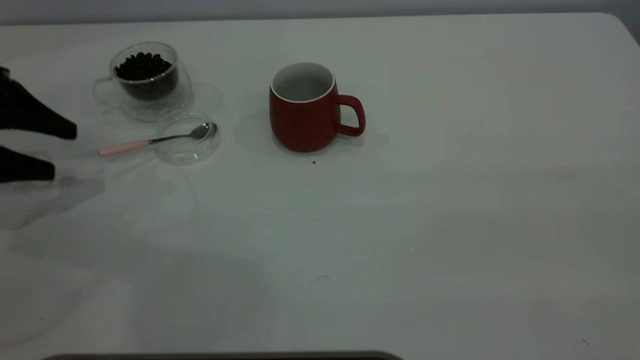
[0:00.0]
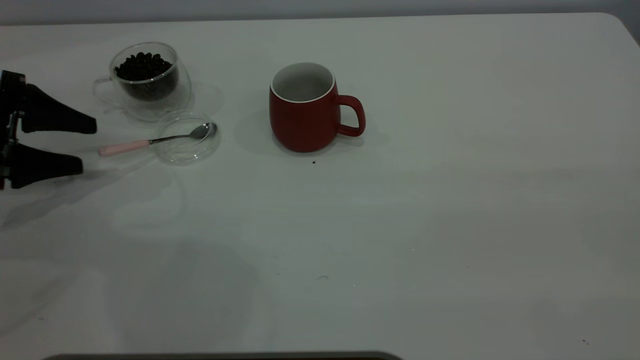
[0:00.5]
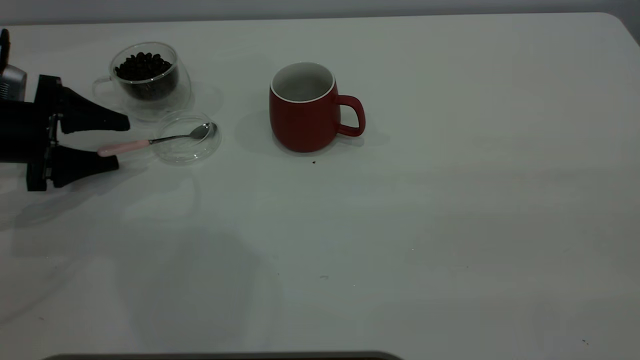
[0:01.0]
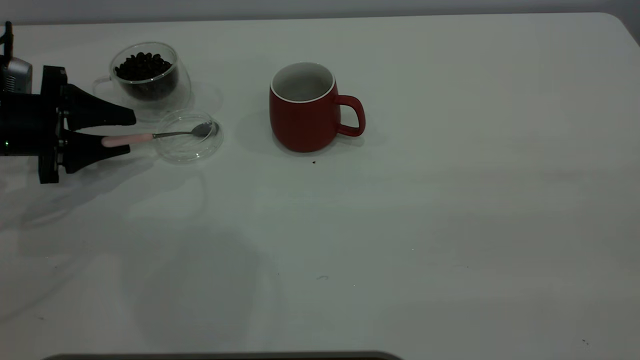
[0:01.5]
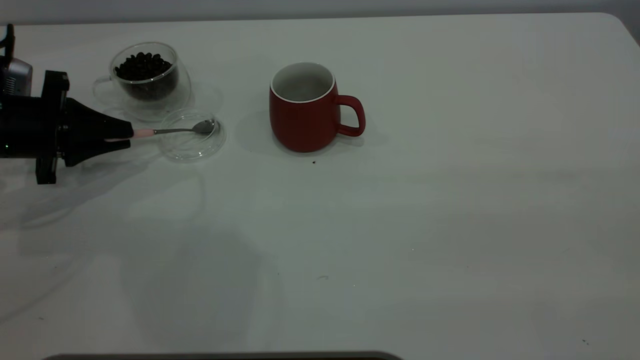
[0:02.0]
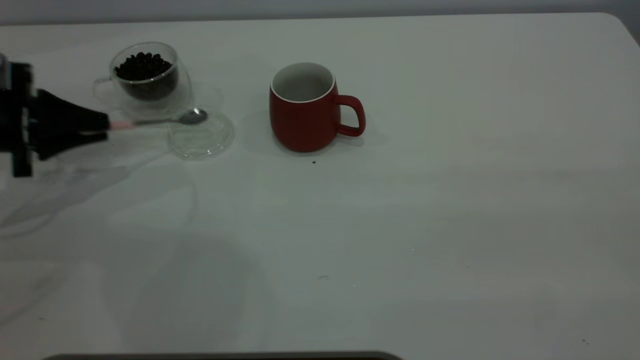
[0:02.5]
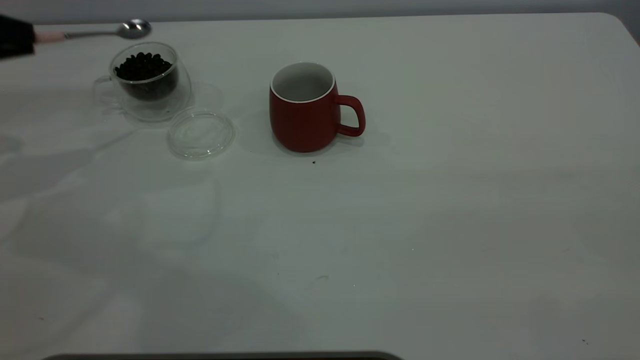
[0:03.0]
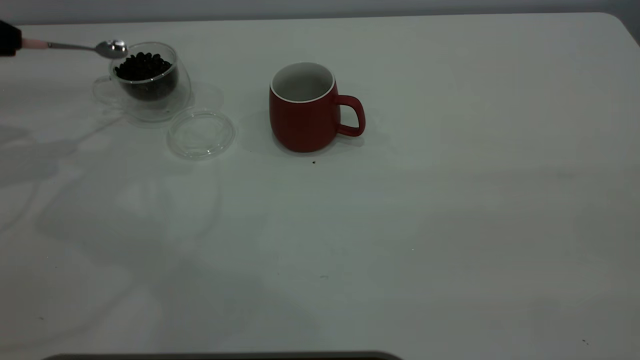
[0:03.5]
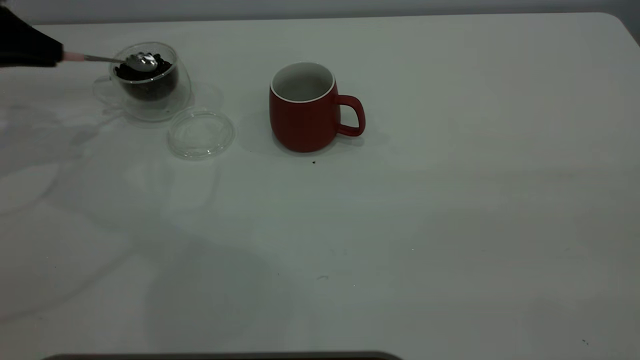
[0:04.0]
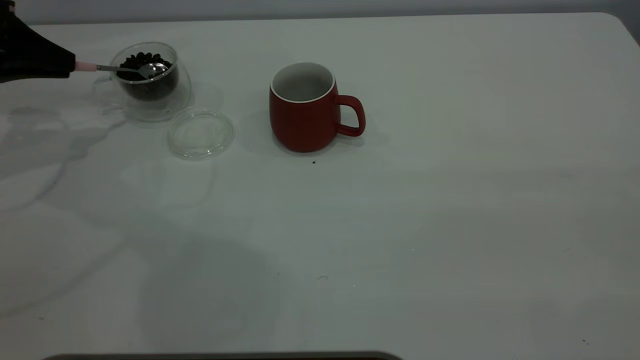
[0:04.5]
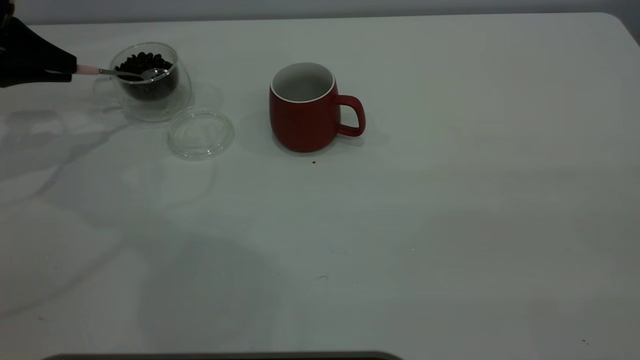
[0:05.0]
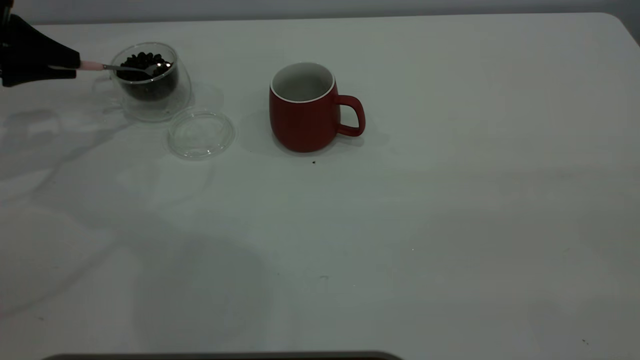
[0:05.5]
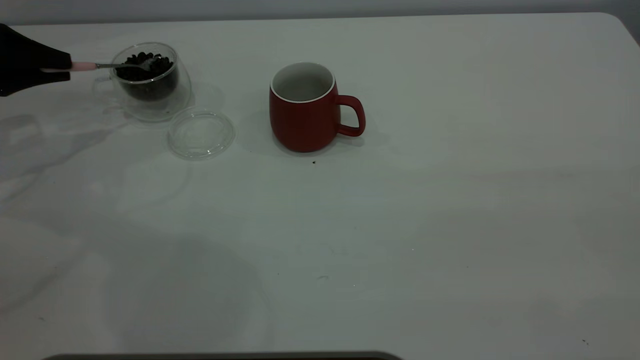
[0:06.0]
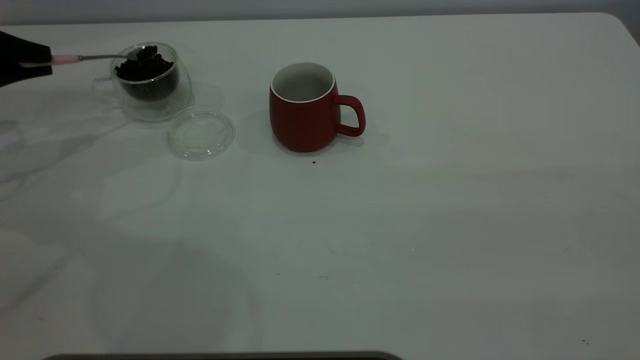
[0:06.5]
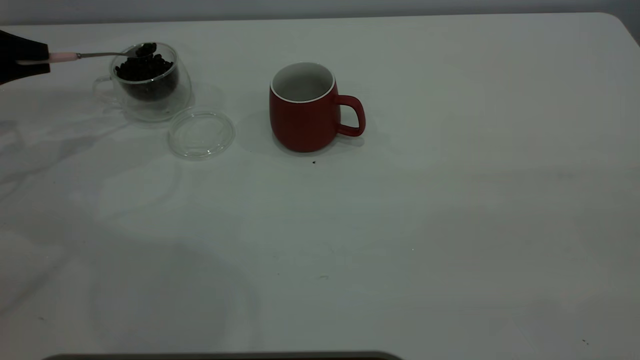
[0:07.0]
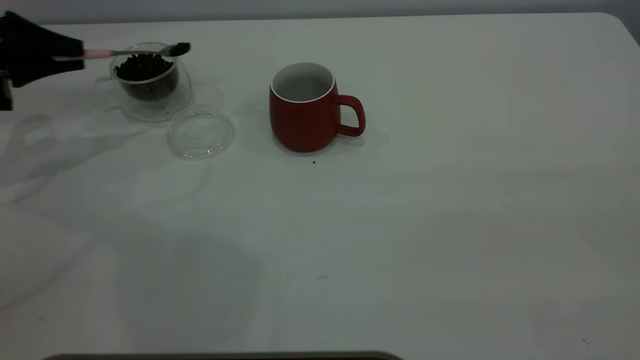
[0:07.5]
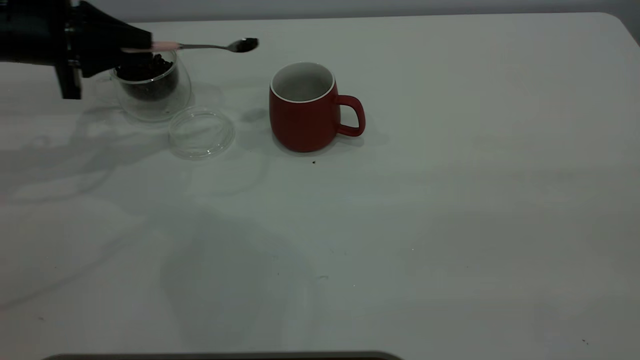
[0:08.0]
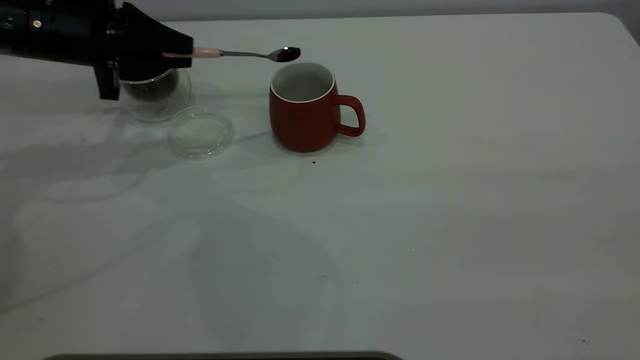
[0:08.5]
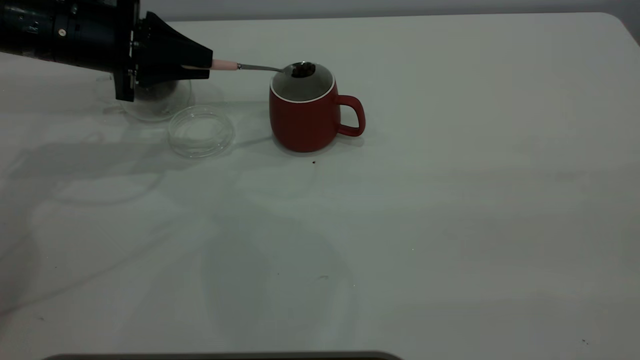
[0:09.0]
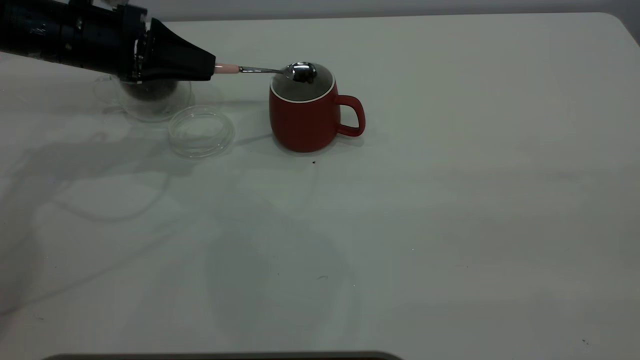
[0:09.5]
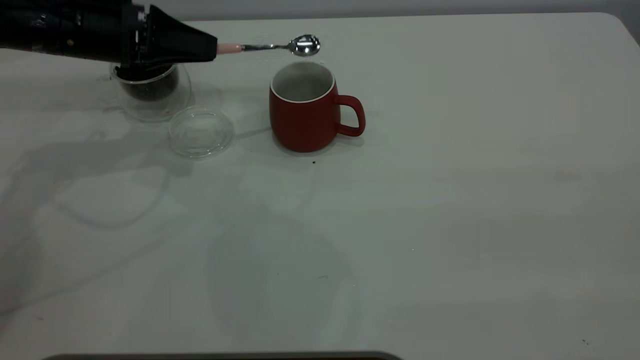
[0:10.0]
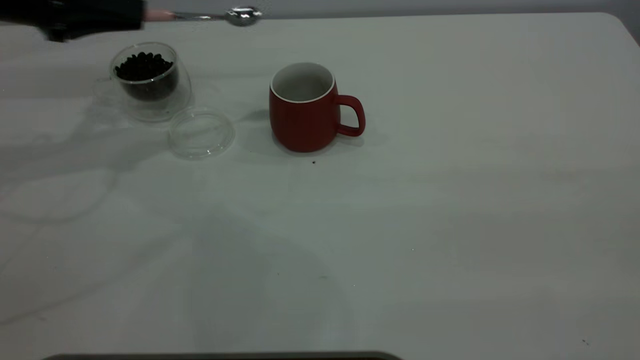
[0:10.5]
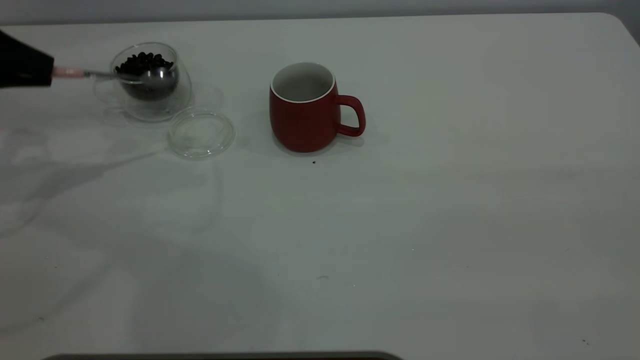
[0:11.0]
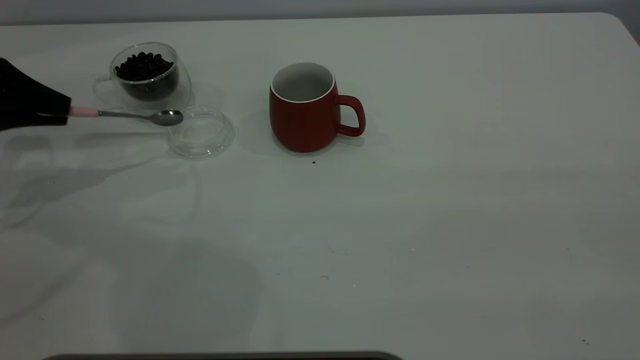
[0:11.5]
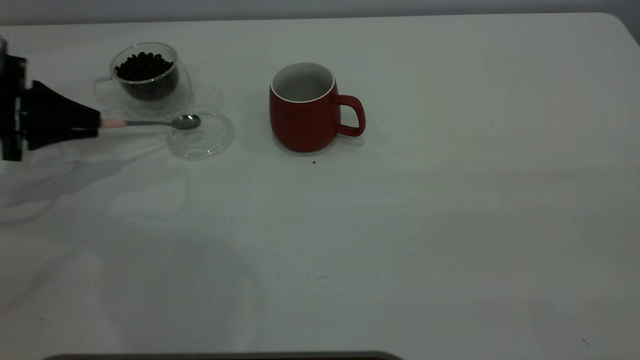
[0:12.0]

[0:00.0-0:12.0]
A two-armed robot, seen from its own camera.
Task of the whole recording: the right gripper place the red cup in the center of the table, the left gripper take the pink spoon from the cup lid and scoop out the coffee beans from the coffee cup and put them into the red cup, the left gripper put the spoon back into the cup lid.
Step, 0:00.0 to 0:02.5: Pick up the spoon.
Step, 0:03.0 to 0:10.0: Scoop a spoonful of beans into the cup.
0:00.0 to 0:02.0: The left gripper changes place by some 5 cm, and closes up.
0:02.0 to 0:04.0: The left gripper shifts about 15 cm upward, forward and to the left.
0:06.0 to 0:08.0: The left gripper shifts roughly 10 cm to the right.
0:08.0 to 0:10.0: The left gripper shifts roughly 5 cm to the right.
0:10.0 to 0:12.0: The left gripper goes about 15 cm to the left and downward.

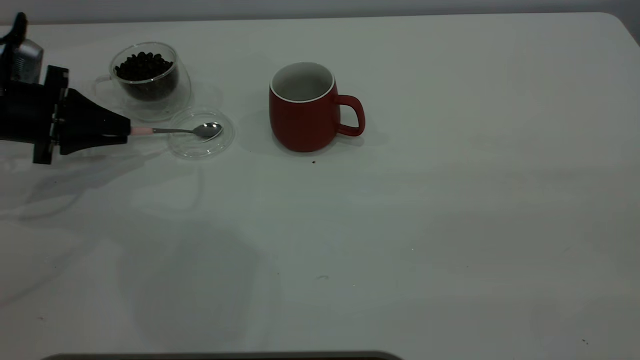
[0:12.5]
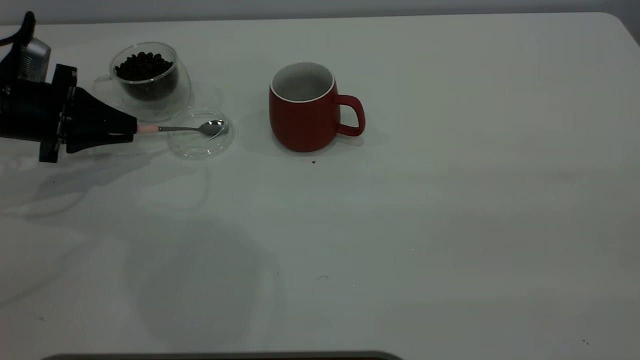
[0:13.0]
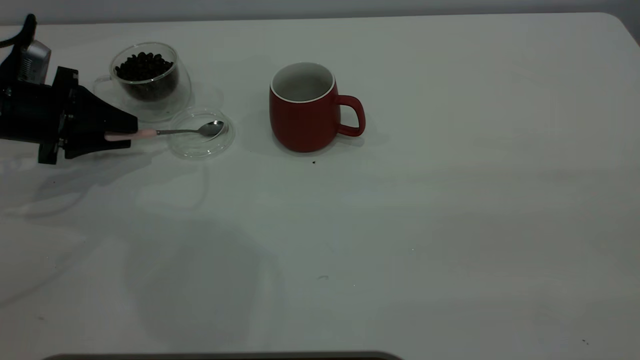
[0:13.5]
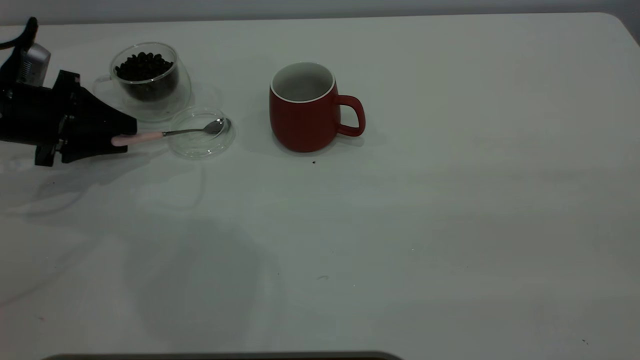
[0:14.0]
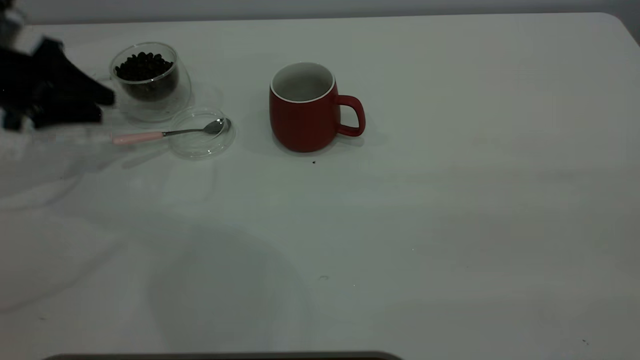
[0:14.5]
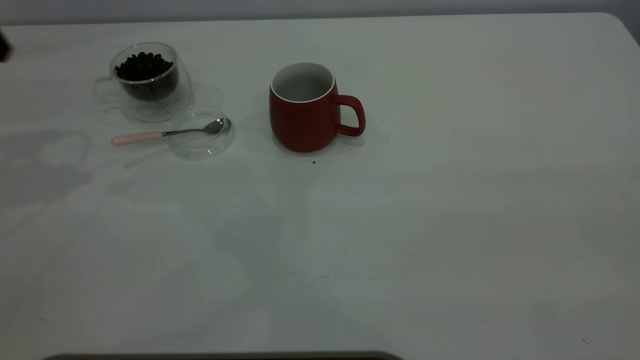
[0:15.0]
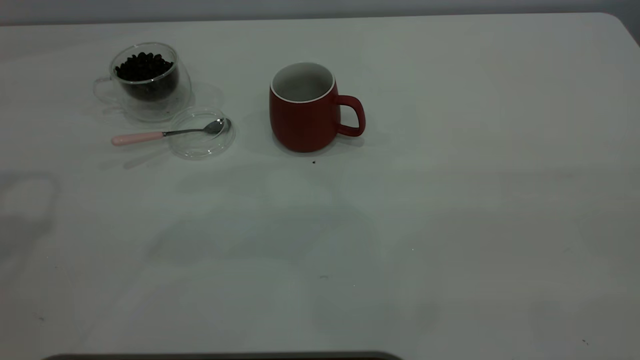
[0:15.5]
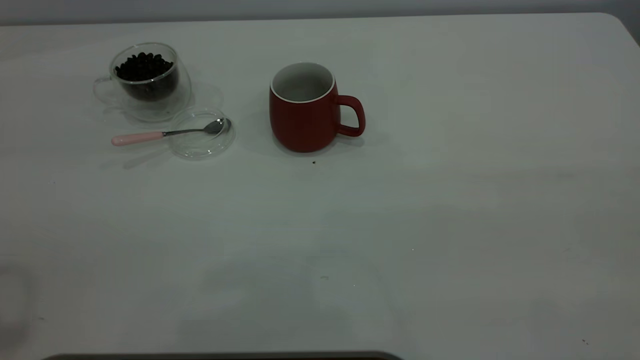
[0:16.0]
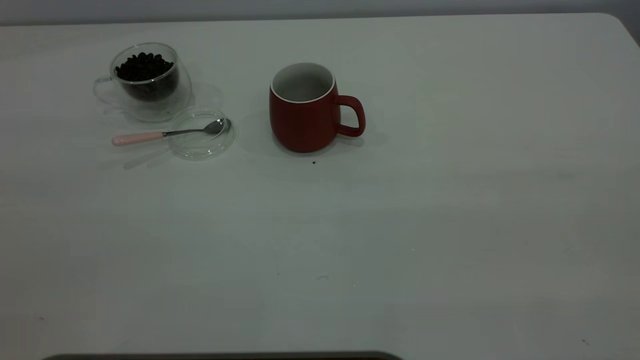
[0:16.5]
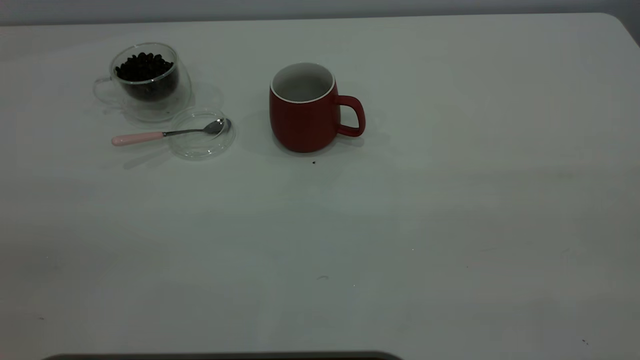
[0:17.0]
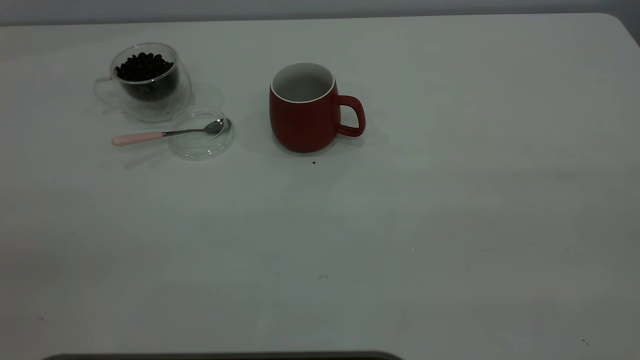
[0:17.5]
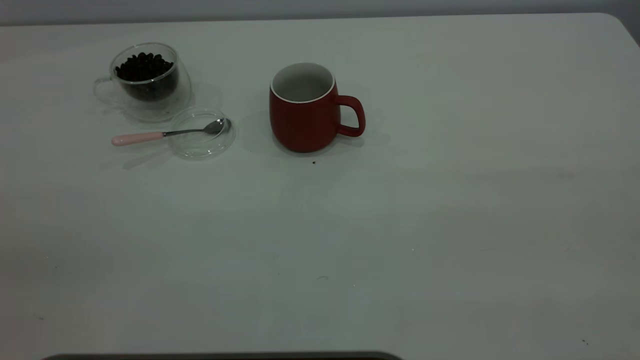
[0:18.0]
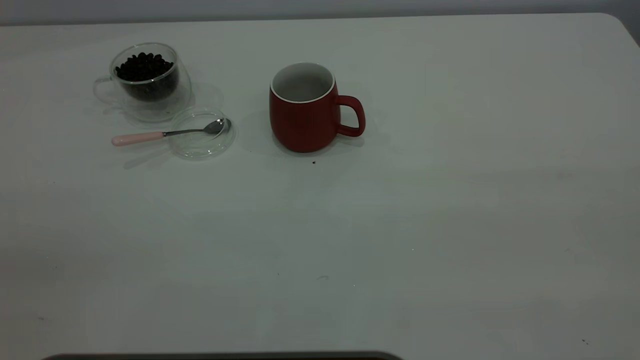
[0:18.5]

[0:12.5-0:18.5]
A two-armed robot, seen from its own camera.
Task of the whole recording: the right gripper place the red cup in the center of the table, the left gripper take the pink spoon from the cup lid and scoop out the coffee beans from the coffee cup and put them into the red cup, the left gripper put the spoon back into the cup lid.
Step, 0:12.5 to 0:14.5: Place the spoon back in its original place.
0:12.5 to 0:14.5: The left gripper moves upward, approximately 5 cm, and opens.
0:14.5 to 0:16.5: The left gripper is displaced backward and upward by approximately 50 cm.
